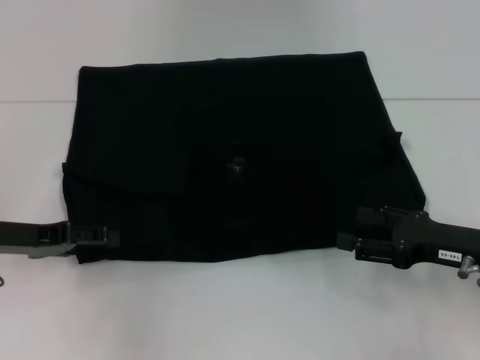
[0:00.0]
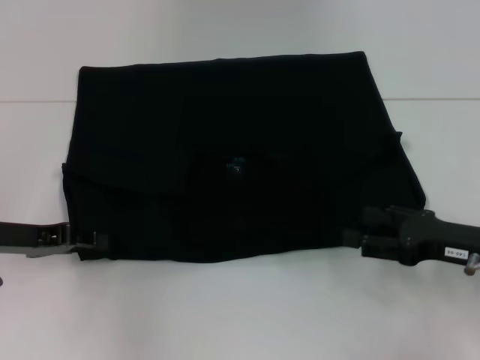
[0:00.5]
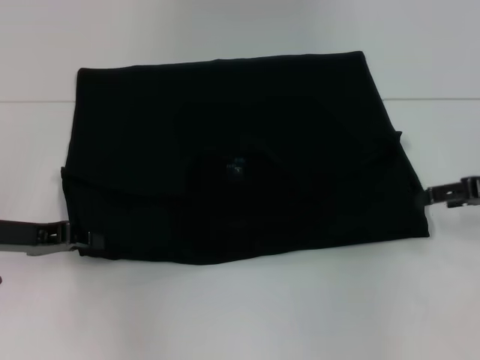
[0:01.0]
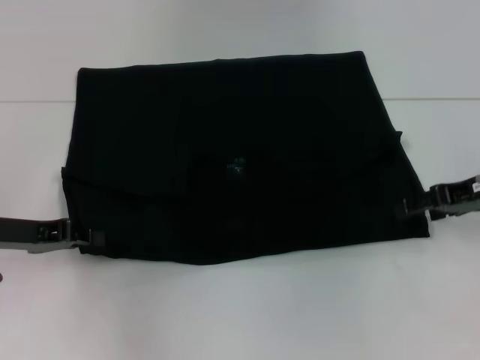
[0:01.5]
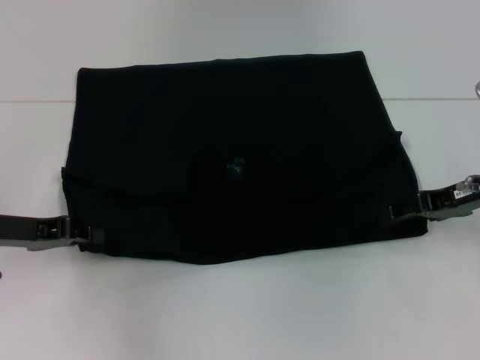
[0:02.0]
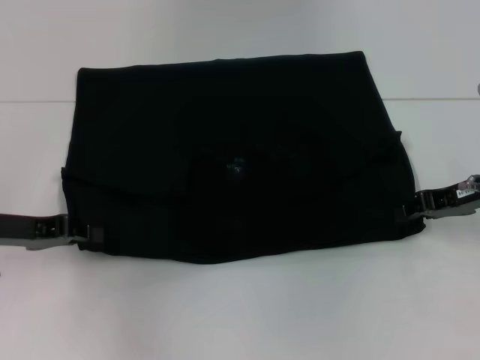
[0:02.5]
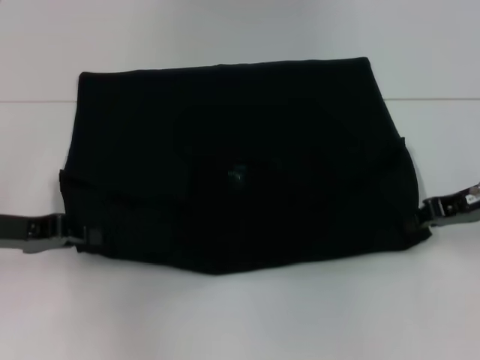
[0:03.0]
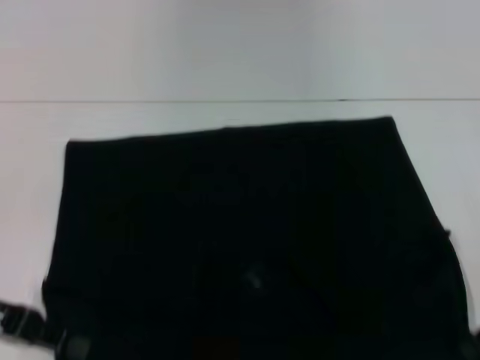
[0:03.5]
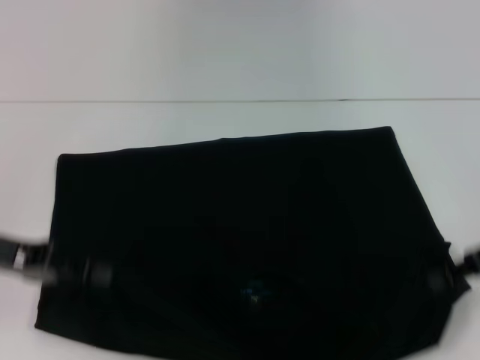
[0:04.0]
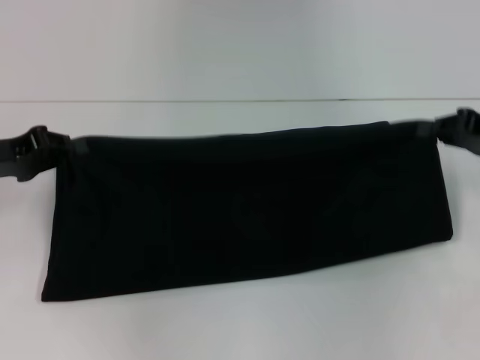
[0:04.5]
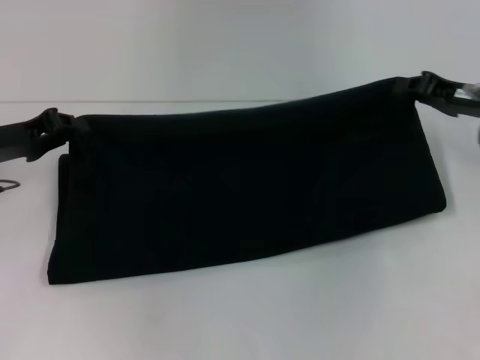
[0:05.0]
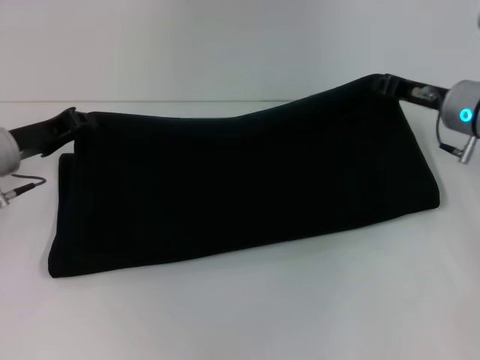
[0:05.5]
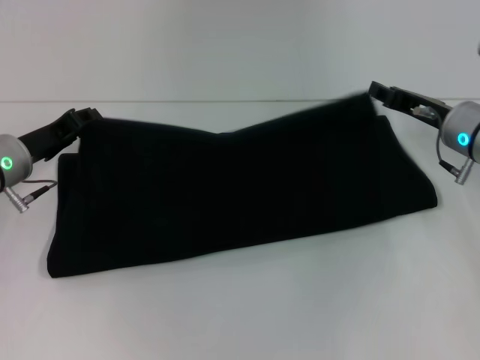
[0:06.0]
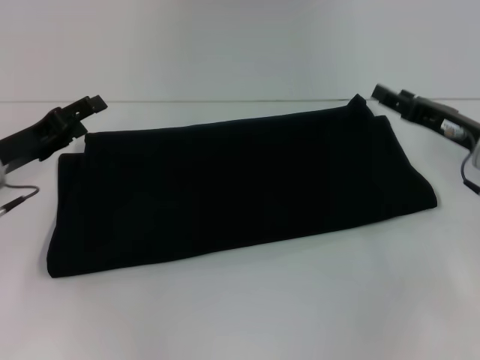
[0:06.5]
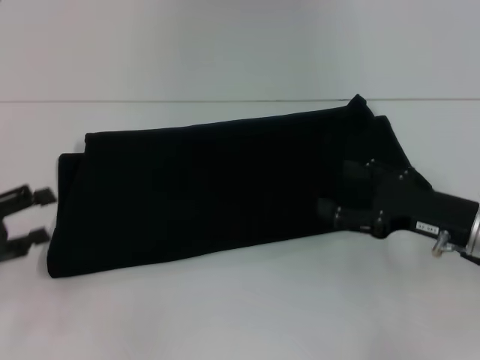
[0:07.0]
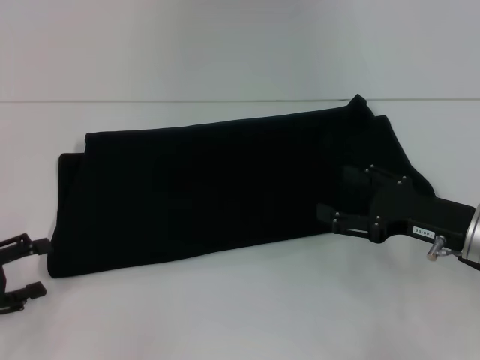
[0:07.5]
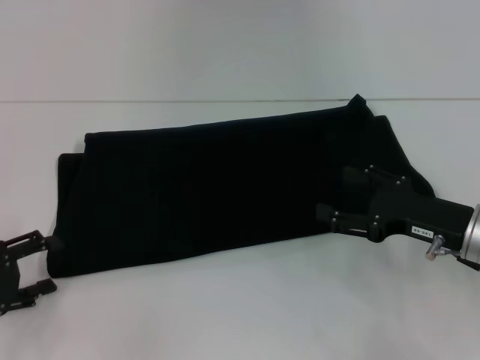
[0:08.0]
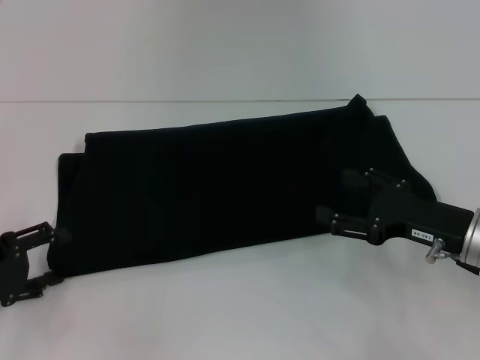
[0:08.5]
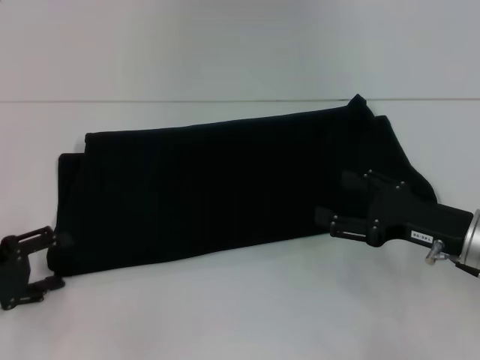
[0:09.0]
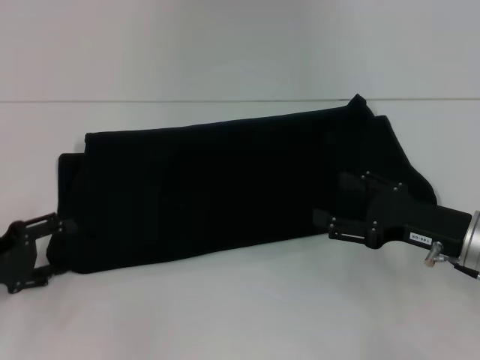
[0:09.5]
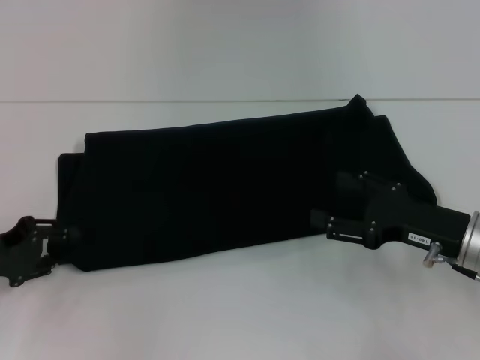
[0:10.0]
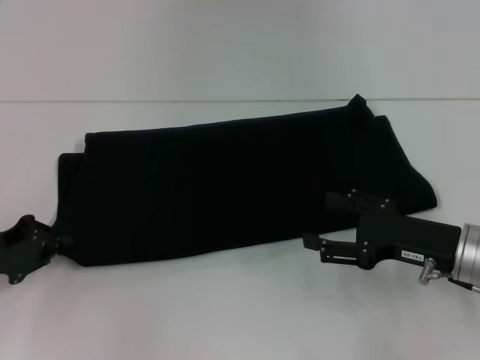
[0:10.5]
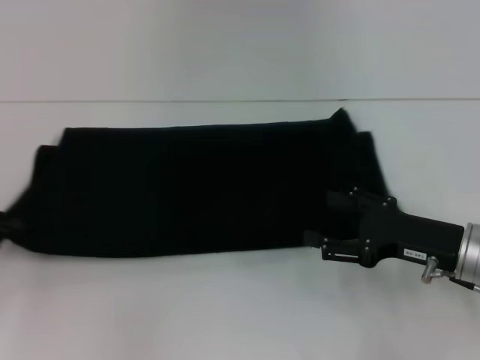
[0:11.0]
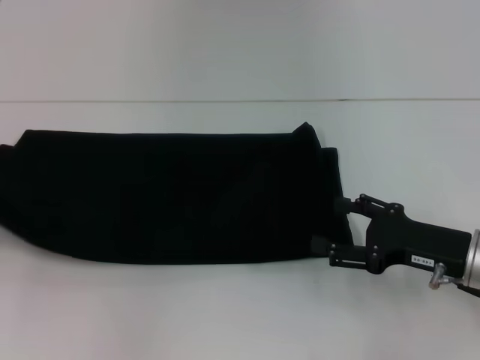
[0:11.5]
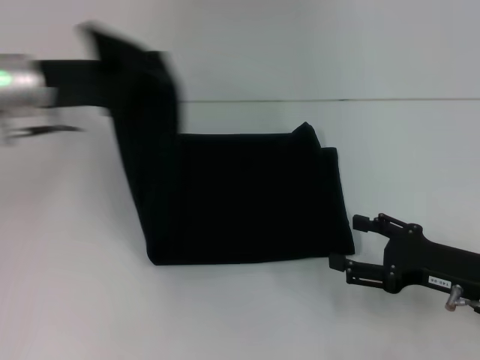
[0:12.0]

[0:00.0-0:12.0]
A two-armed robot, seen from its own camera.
Step, 0:00.0 to 0:03.5: Pull the clothes with your left hand.
Step, 0:00.0 to 0:03.5: Pull the clothes with your right hand.
Step, 0:04.0 to 0:06.5: Fold the clothes with your right hand.
0:00.0 to 0:02.0: The left gripper closes its fingers; the right gripper shifts some 10 cm forward and upward.
0:02.0 to 0:04.0: The right gripper heads backward, covering approximately 5 cm, and closes up. Meanwhile the left gripper ends up approximately 5 cm from where it was.
0:04.0 to 0:06.0: The right gripper heads forward and to the left, covering roughly 10 cm. Meanwhile the left gripper is displaced forward and downward by some 10 cm.
0:06.0 to 0:08.0: The left gripper travels backward and to the left by roughly 15 cm, and opens up; the right gripper goes roughly 10 cm backward, and opens up.
0:08.0 to 0:10.0: The left gripper changes place by approximately 5 cm.
0:10.0 to 0:12.0: The left gripper is displaced upward, forward and to the right by approximately 20 cm, and closes up.

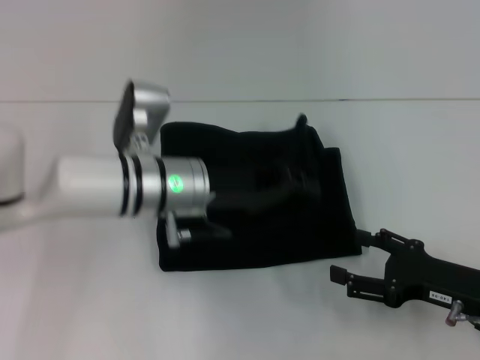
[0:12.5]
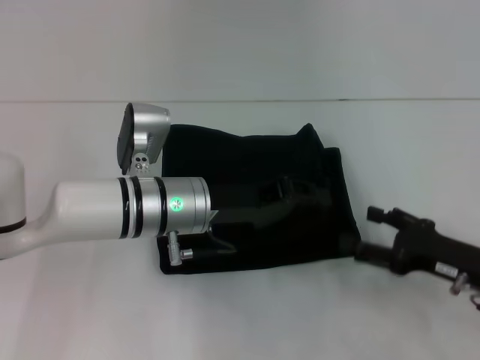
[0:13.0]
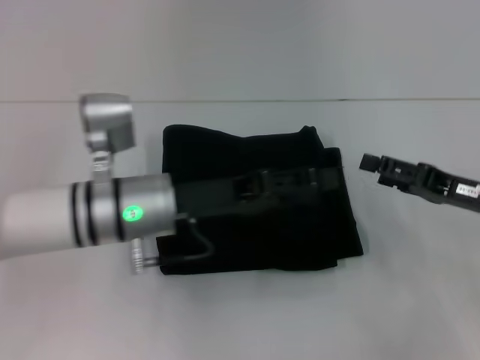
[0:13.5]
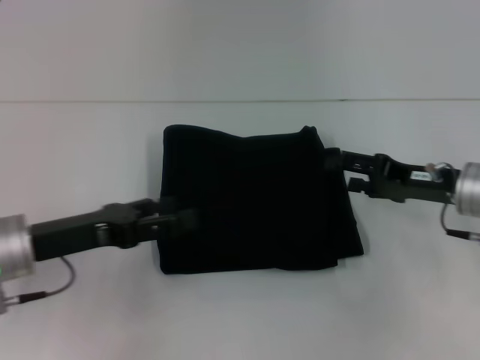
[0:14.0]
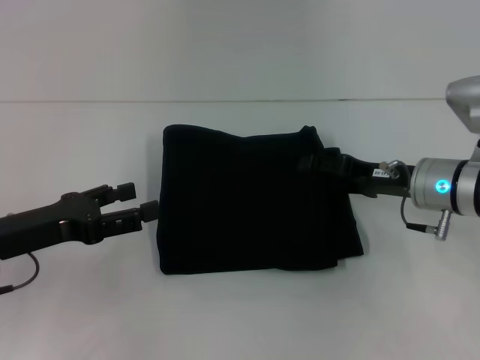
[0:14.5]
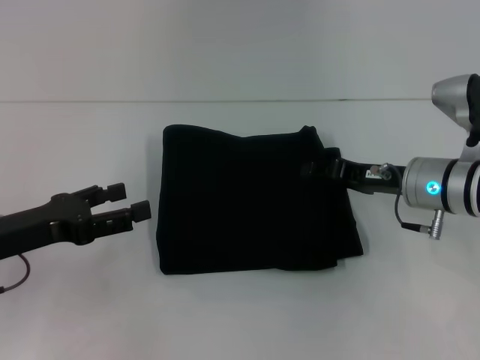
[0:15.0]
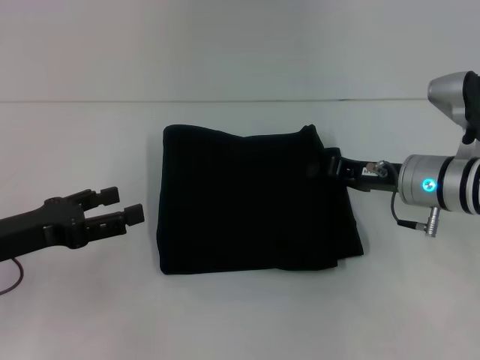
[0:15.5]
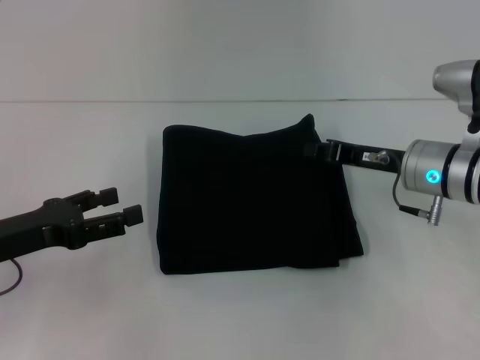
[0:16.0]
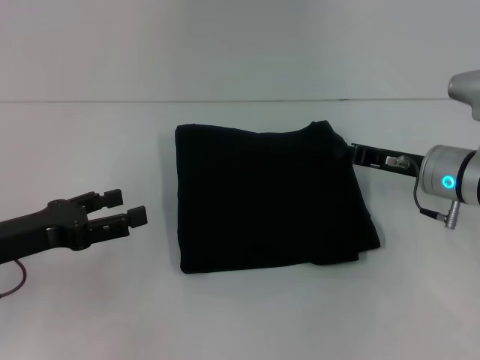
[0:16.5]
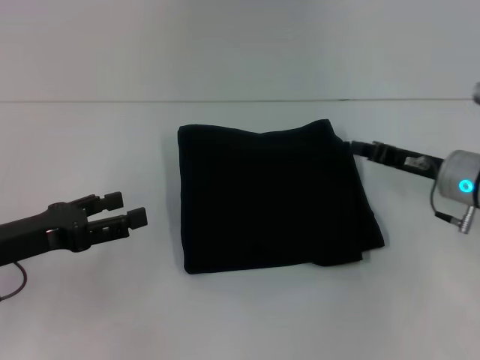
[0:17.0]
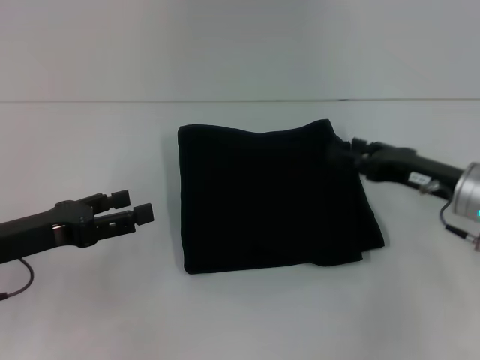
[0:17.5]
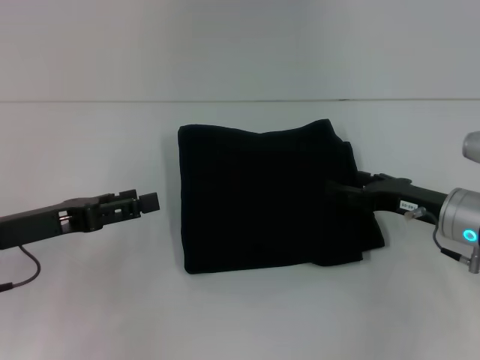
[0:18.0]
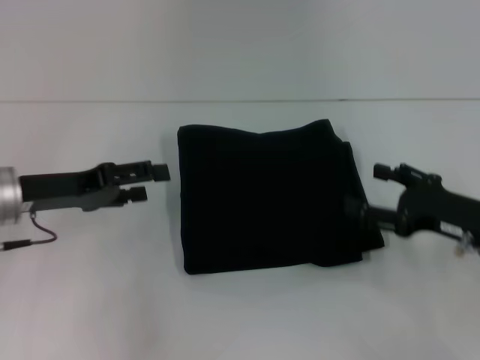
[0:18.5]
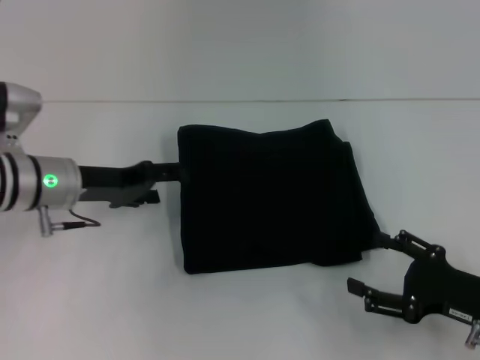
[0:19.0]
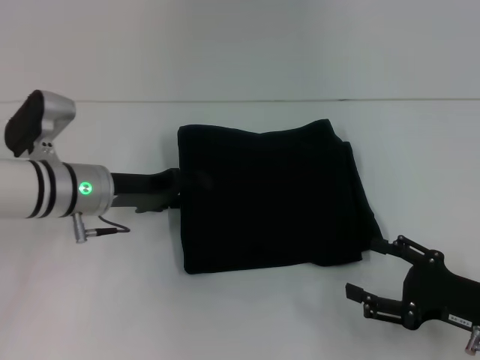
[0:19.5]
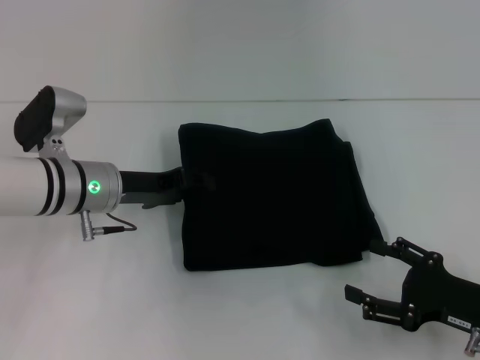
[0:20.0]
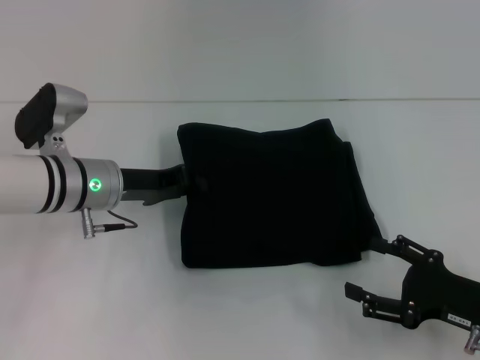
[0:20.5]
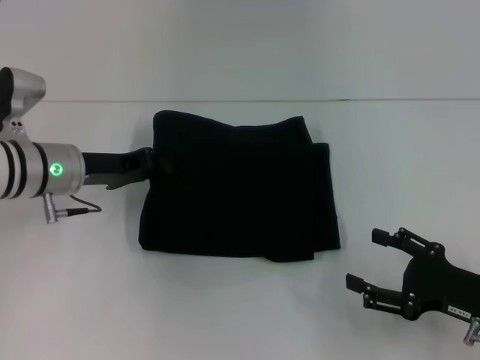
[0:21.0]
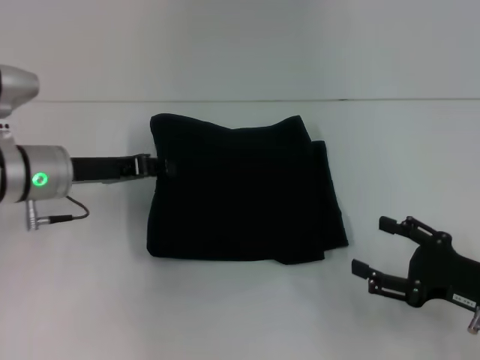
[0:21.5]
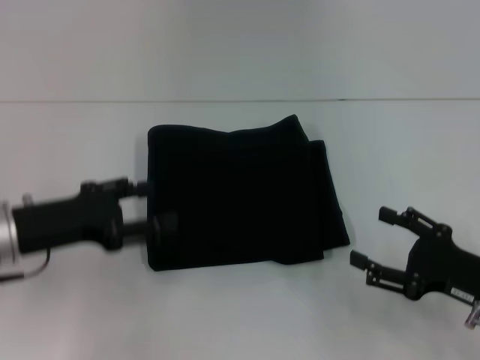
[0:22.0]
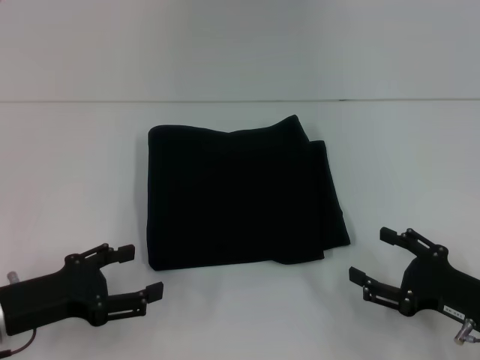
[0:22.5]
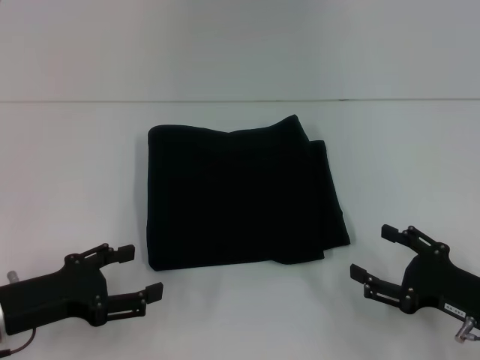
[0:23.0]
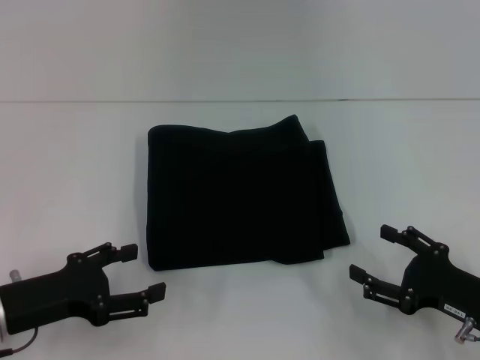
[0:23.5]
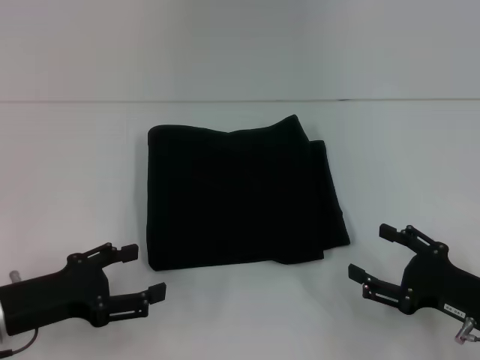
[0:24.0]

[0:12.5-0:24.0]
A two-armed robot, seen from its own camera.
0:12.5 to 0:14.5: The left gripper travels to the left and backward by approximately 20 cm, and opens its fingers. Meanwhile the right gripper heads forward and to the left, covering approximately 15 cm.
0:14.5 to 0:16.5: The right gripper closes.
0:16.5 to 0:18.5: The right gripper travels backward and to the right by approximately 10 cm, and opens its fingers; the left gripper goes roughly 5 cm forward.
0:18.5 to 0:20.0: The left gripper heads to the right, covering some 10 cm. The right gripper is displaced backward by about 10 cm.
0:20.0 to 0:22.0: The left gripper moves backward and to the left, approximately 10 cm, and closes, then reopens.
0:22.0 to 0:24.0: The left gripper moves backward, about 5 cm, and opens.
